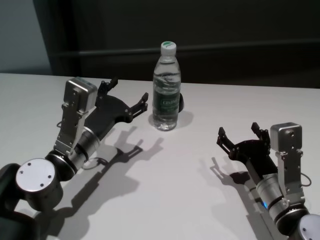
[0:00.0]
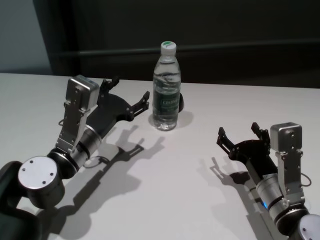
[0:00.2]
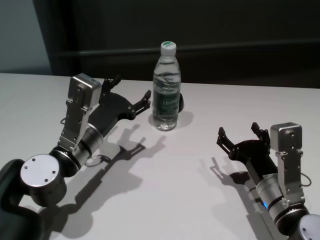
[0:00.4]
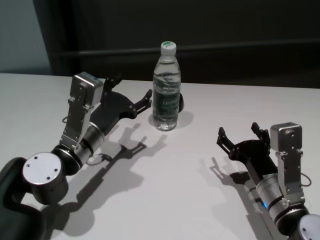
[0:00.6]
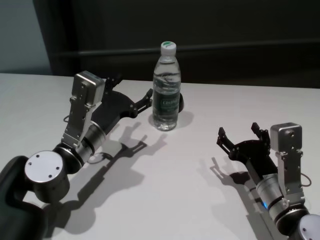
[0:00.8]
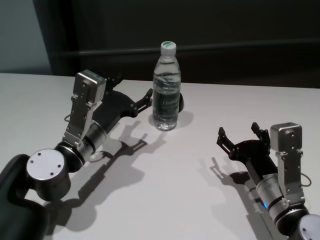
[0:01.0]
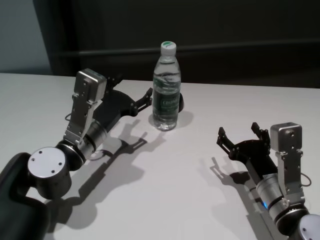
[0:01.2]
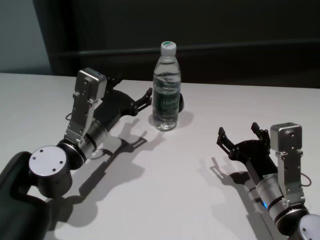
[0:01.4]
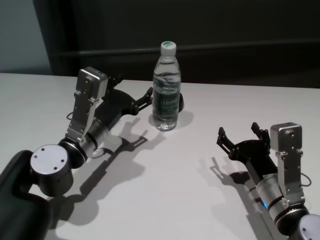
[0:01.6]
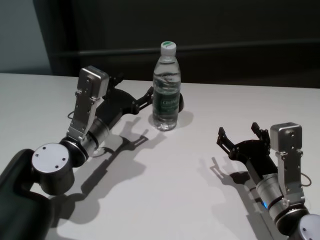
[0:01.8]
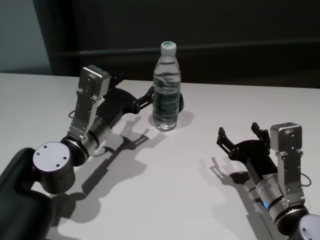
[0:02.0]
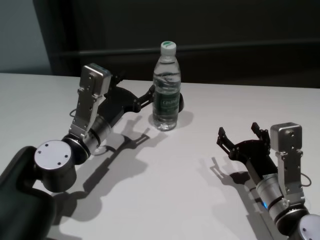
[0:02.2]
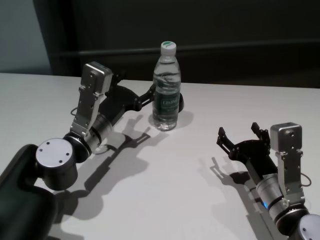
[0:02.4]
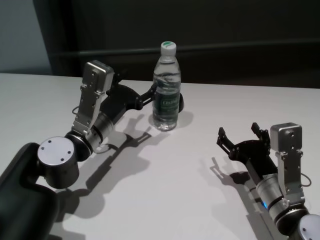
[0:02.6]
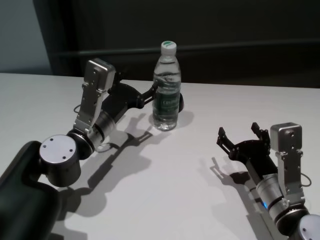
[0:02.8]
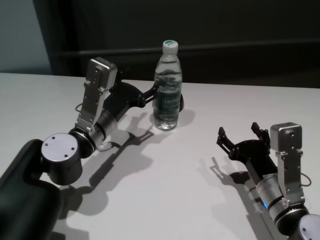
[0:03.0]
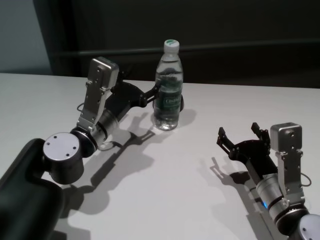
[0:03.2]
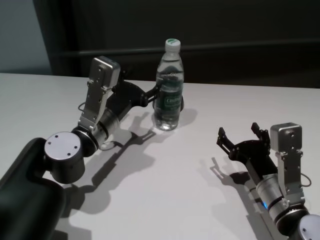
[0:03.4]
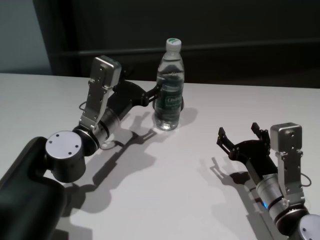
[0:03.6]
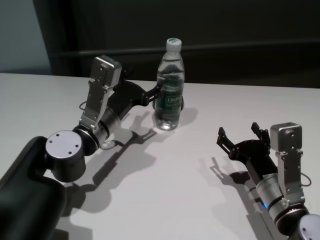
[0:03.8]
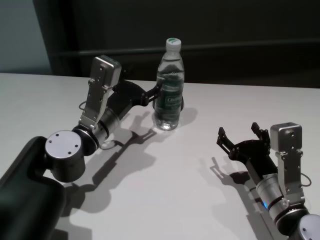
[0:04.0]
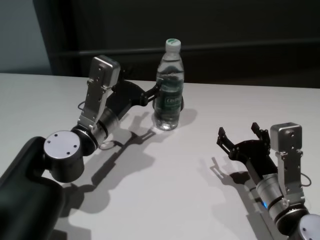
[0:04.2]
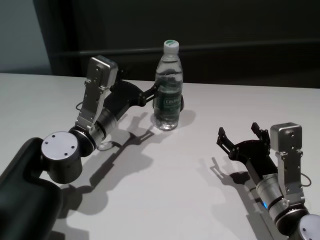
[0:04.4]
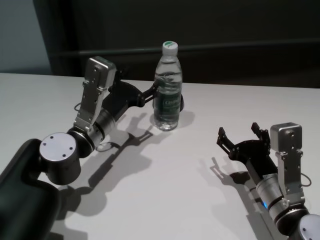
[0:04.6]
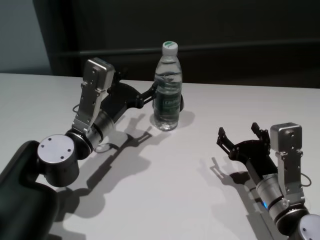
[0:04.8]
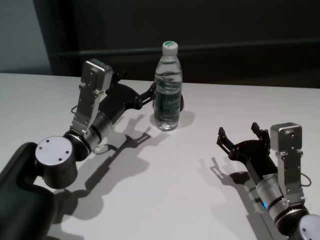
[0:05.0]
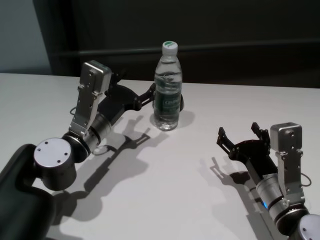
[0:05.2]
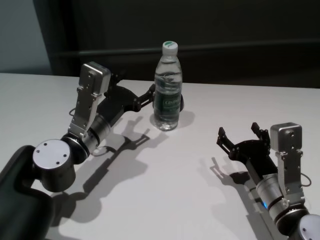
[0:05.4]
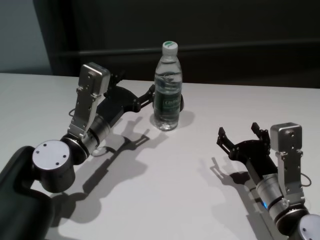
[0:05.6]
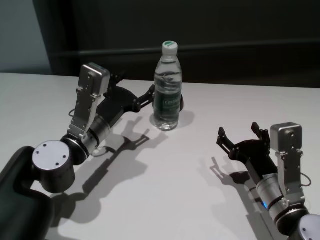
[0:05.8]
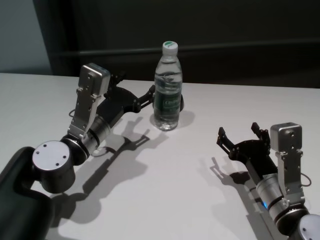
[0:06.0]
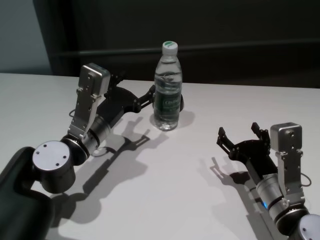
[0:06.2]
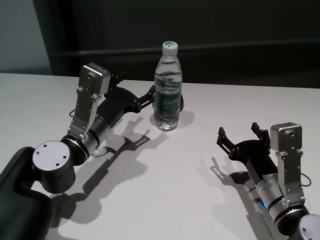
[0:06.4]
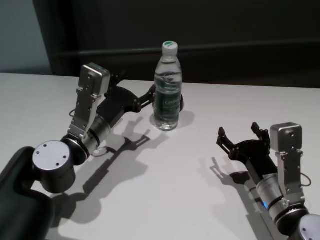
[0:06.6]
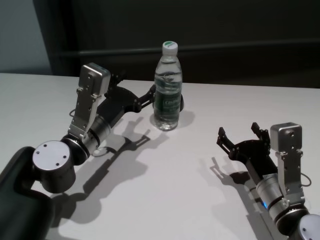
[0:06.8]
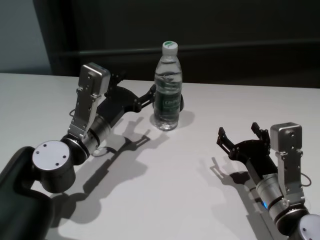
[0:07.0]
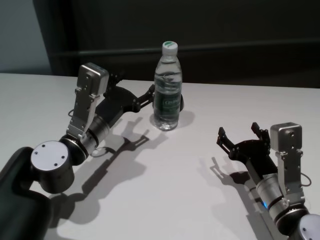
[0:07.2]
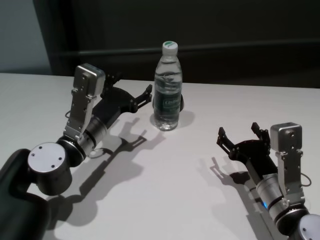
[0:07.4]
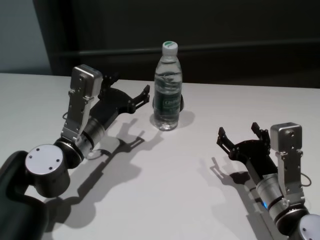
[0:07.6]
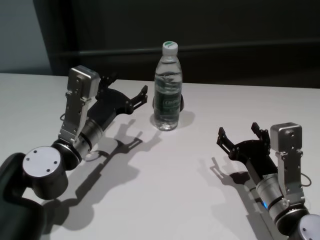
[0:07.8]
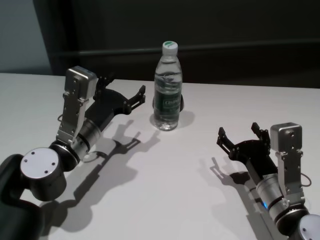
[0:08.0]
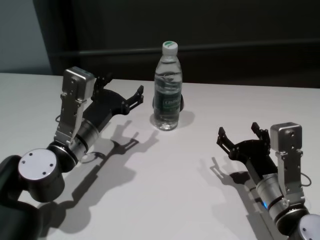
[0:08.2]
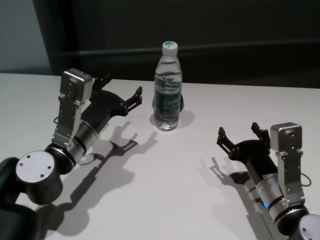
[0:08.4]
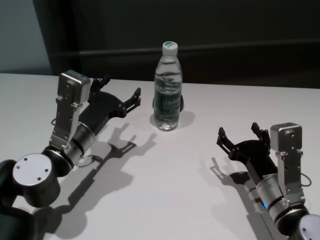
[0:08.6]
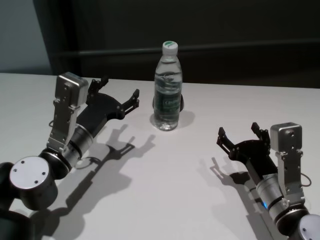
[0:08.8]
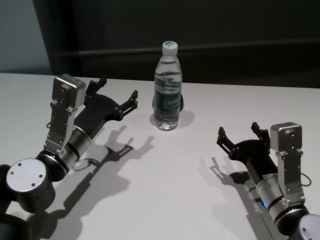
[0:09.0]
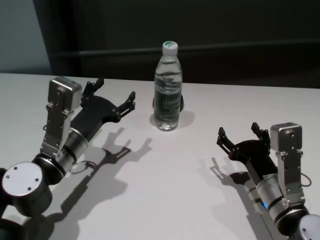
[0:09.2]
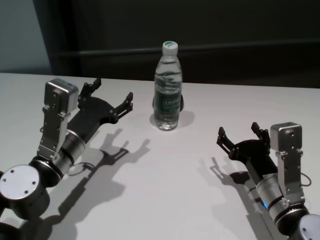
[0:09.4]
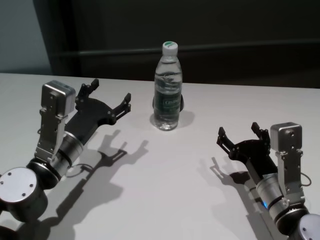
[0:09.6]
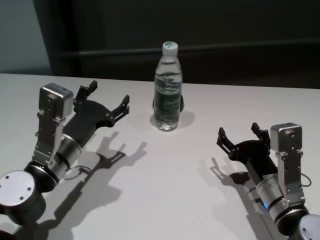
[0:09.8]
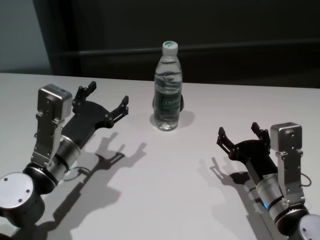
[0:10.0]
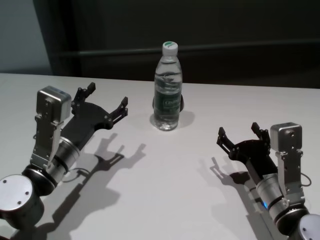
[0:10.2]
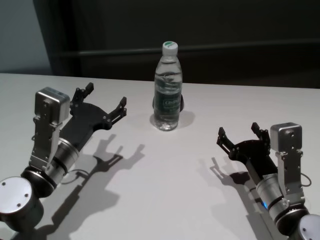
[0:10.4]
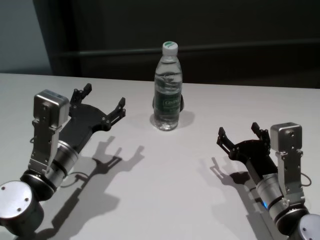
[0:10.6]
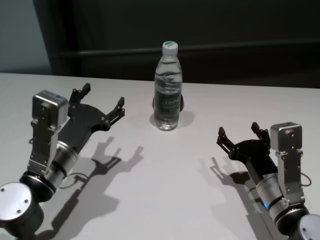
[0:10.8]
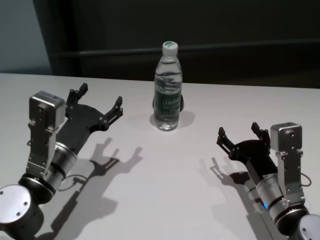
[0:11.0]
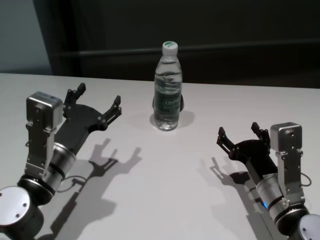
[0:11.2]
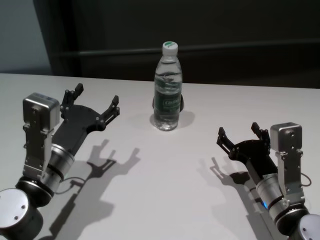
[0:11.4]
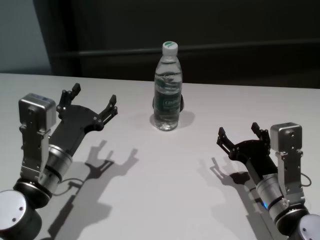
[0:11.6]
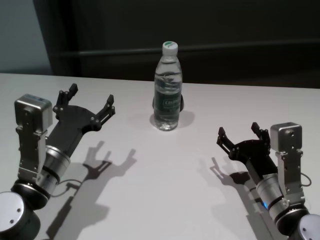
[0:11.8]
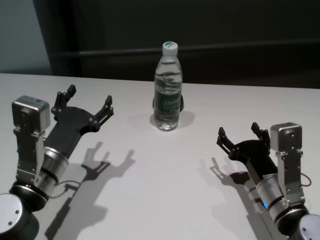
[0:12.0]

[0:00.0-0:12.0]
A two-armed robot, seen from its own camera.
Task of the whole recording: return to a safe position after touching an obstacle with your arm on the white table.
Step, 0:00.0 to 0:07.4: Touch the bottle with left gripper.

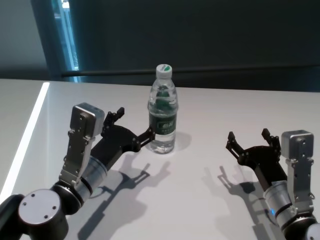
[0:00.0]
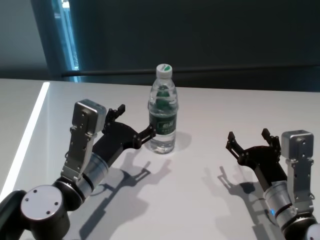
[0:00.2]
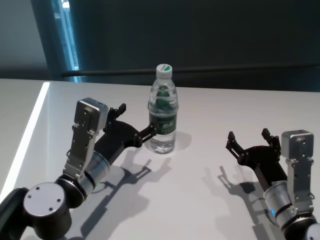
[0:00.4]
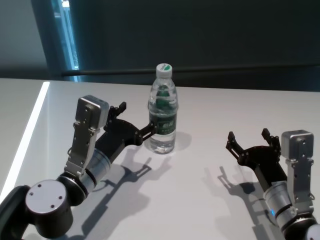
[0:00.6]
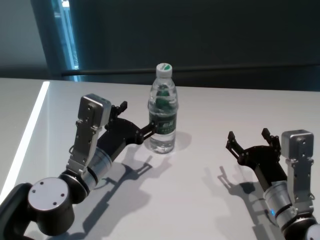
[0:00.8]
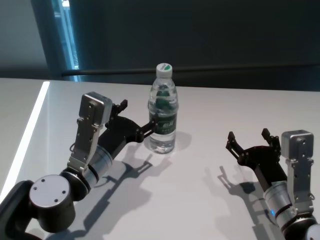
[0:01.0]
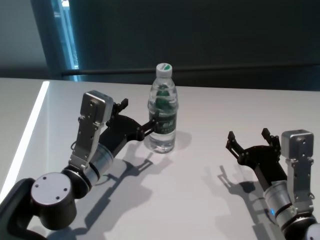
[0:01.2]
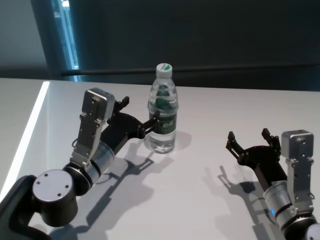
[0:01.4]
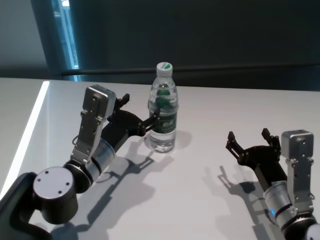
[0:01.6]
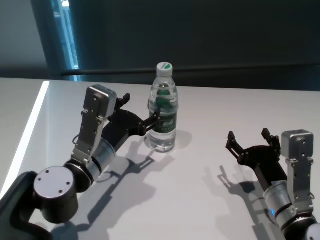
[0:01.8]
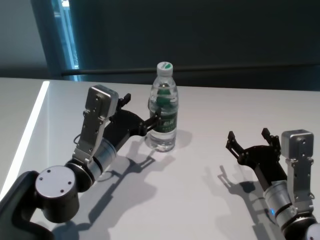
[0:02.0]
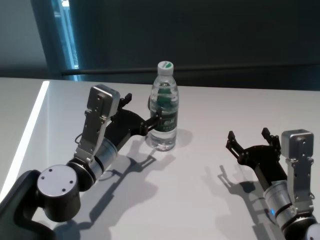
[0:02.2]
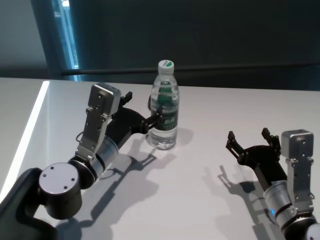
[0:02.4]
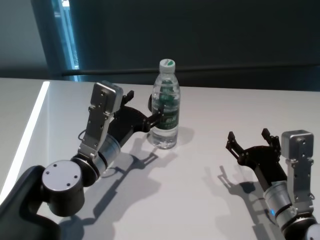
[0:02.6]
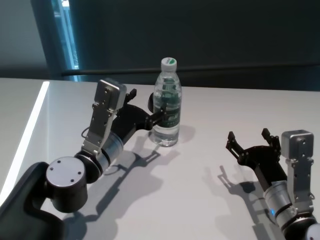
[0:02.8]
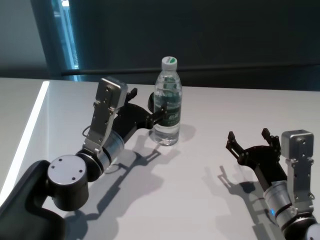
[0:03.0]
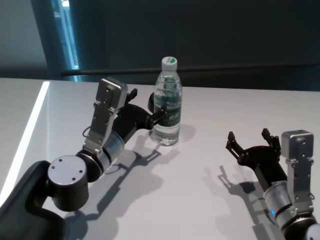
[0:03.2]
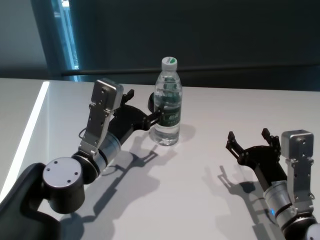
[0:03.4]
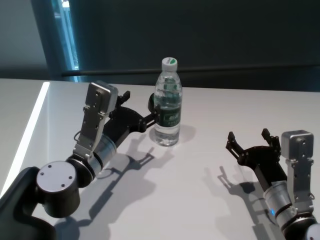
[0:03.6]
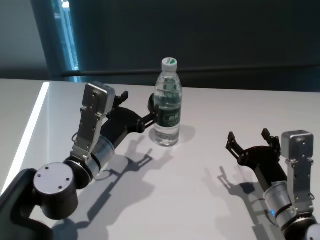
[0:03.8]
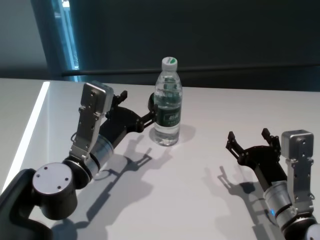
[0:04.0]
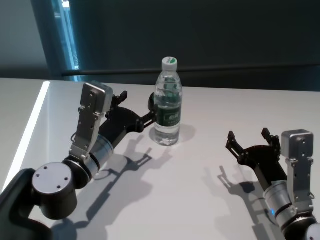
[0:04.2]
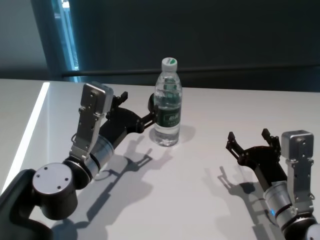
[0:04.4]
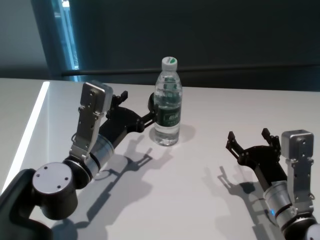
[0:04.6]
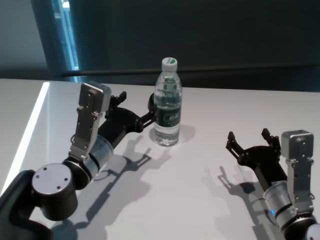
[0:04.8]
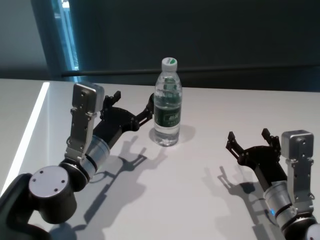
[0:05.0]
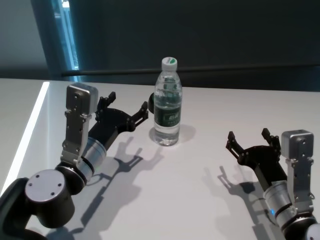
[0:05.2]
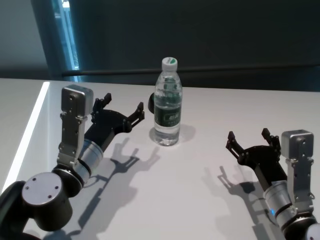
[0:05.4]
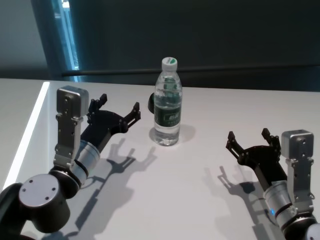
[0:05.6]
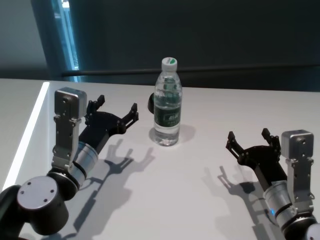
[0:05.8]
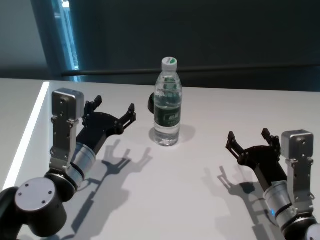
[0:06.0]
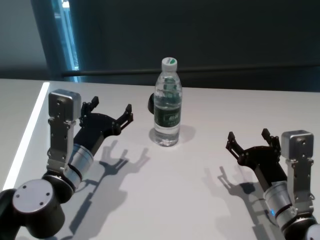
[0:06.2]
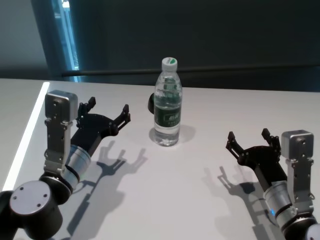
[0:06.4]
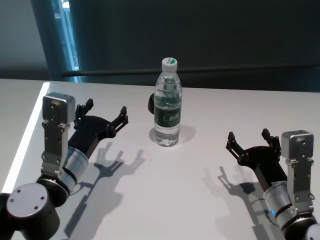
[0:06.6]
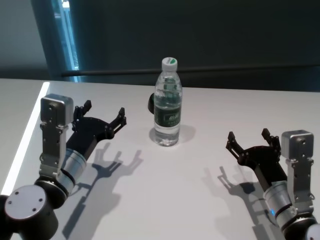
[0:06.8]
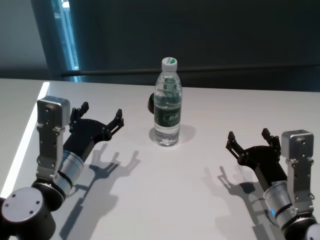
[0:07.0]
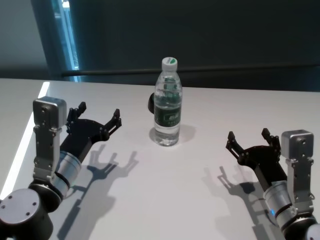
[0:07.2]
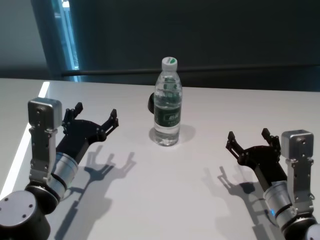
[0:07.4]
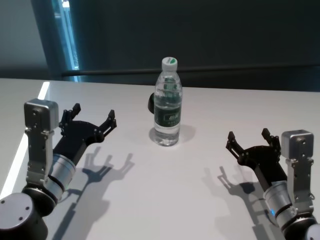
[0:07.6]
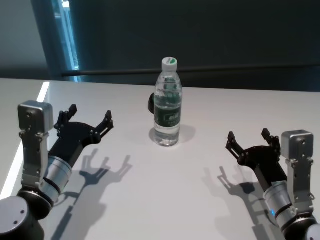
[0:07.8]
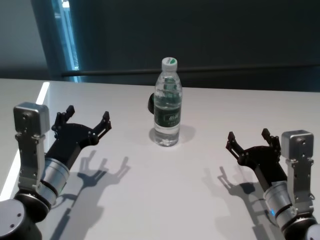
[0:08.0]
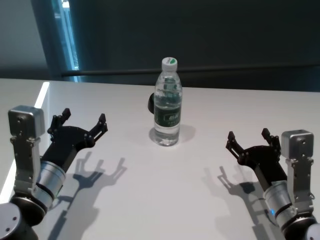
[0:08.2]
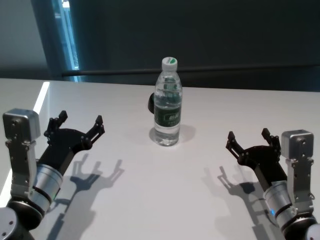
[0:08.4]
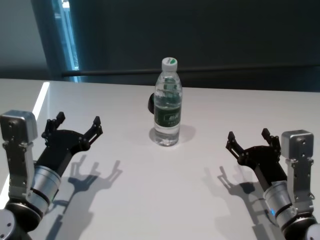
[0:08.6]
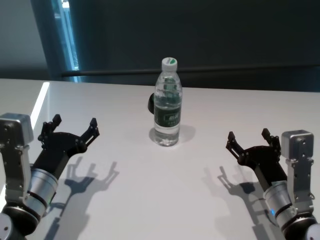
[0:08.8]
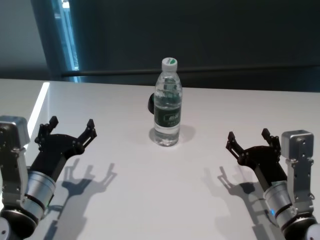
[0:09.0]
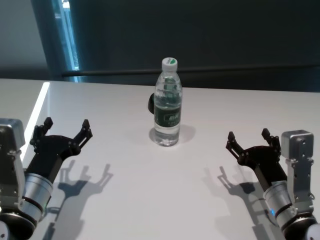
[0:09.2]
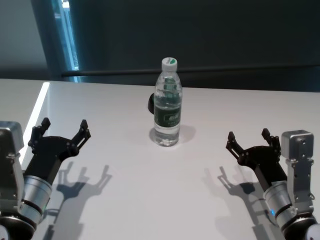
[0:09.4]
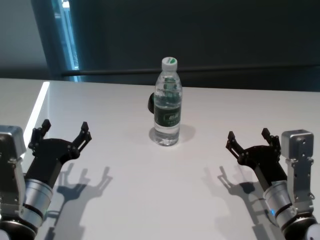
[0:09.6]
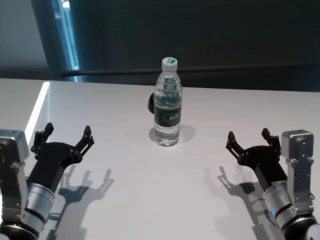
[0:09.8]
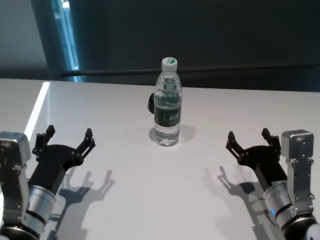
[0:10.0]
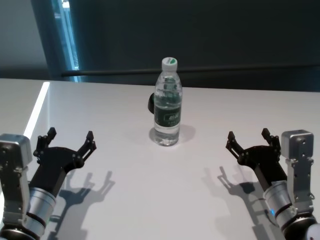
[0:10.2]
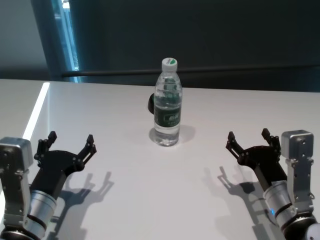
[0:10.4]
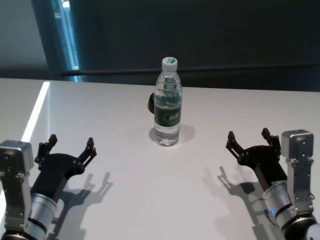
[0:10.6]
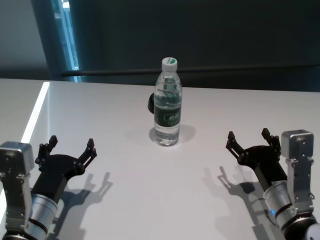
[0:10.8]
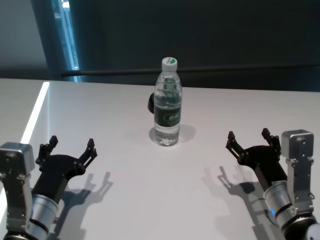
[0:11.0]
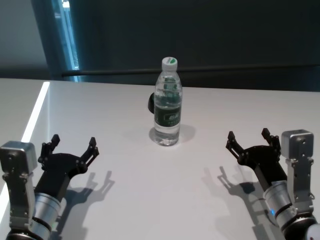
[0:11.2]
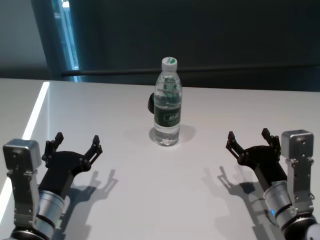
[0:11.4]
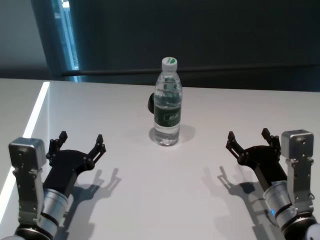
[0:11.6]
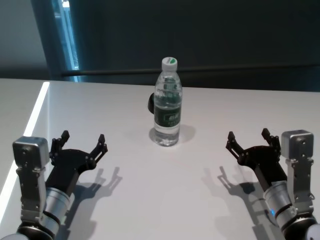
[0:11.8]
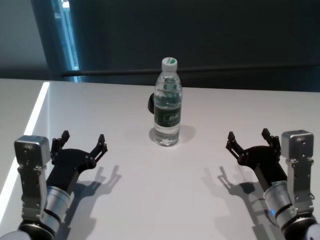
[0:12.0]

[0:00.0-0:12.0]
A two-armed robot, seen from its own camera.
Task of the whole recording: return to a safe position after touching an obstacle with your arm on the white table.
Step, 0:00.0 to 0:05.0: Touch the bottle with left gripper.
